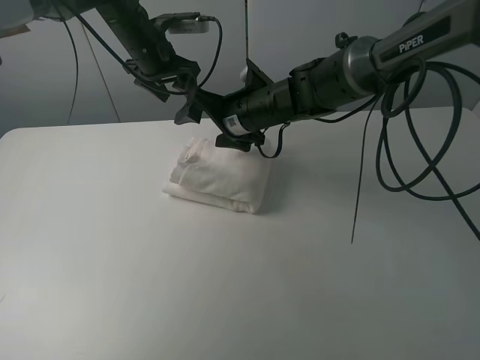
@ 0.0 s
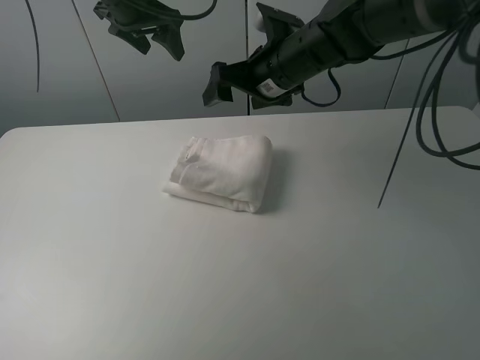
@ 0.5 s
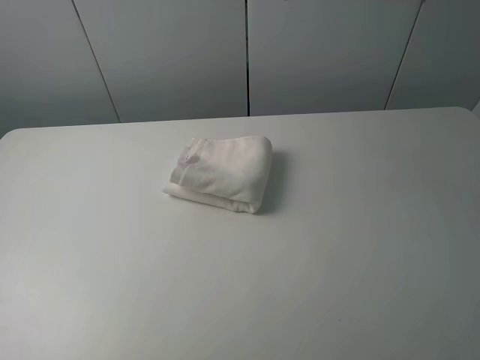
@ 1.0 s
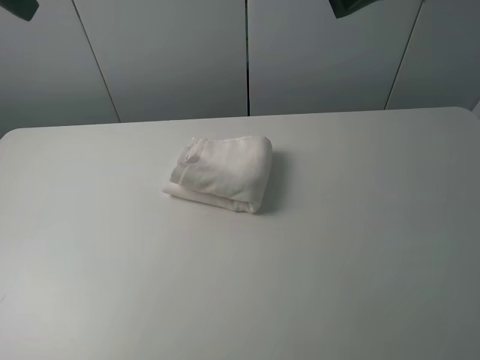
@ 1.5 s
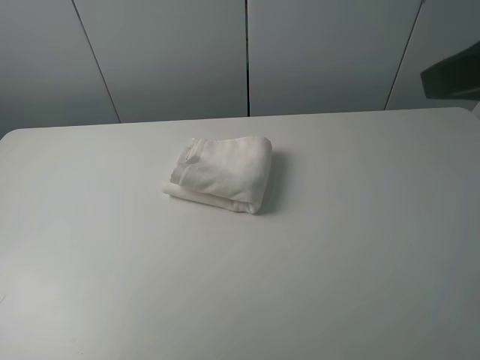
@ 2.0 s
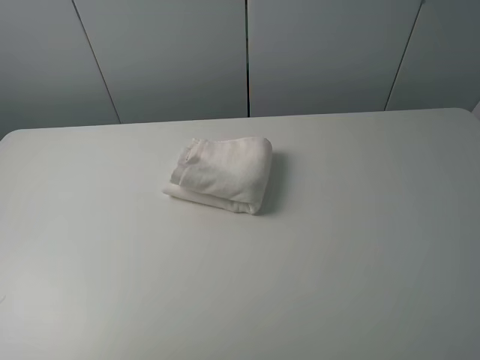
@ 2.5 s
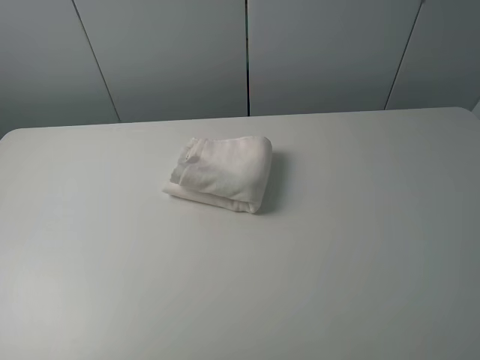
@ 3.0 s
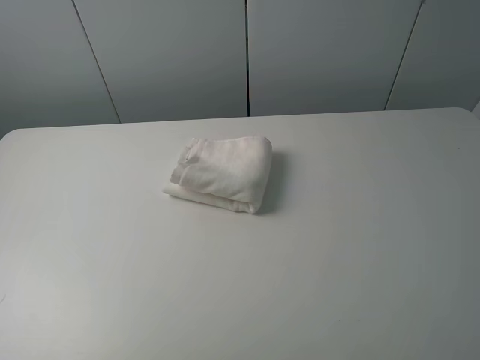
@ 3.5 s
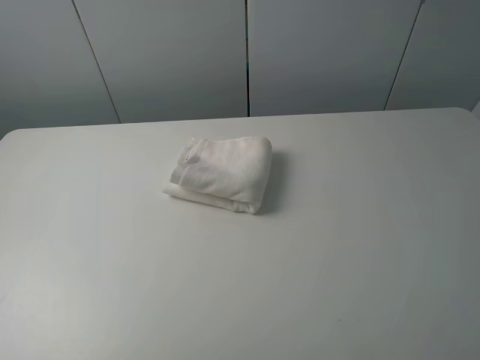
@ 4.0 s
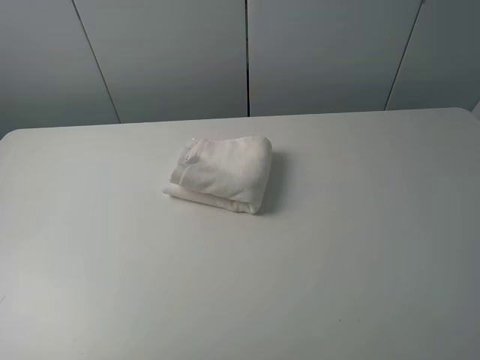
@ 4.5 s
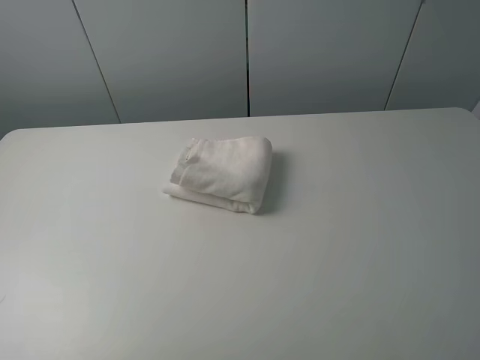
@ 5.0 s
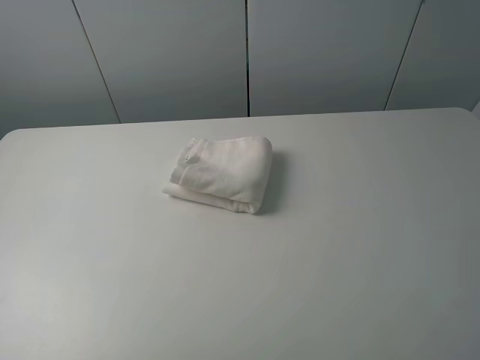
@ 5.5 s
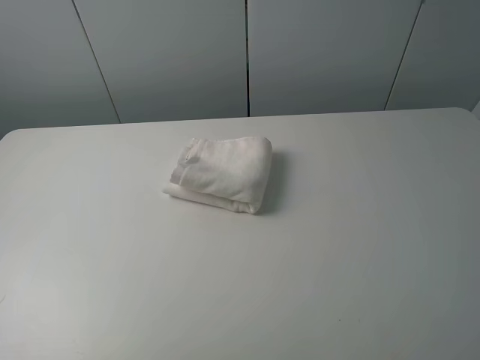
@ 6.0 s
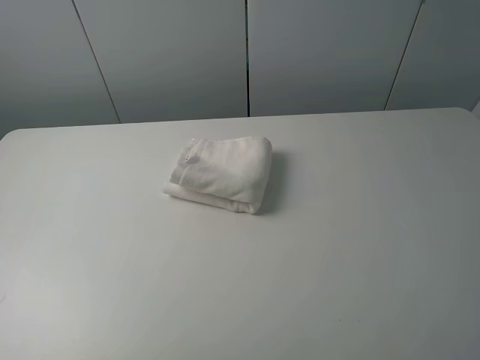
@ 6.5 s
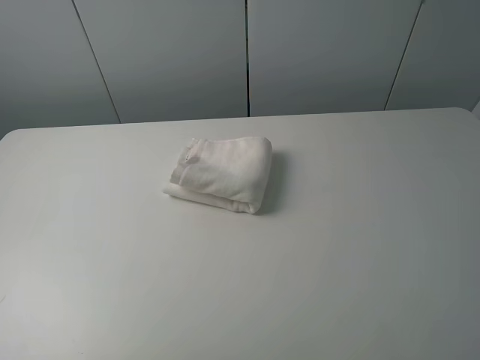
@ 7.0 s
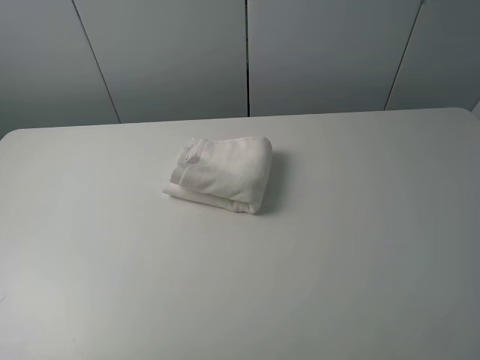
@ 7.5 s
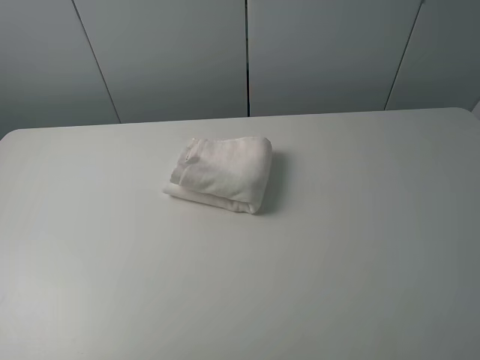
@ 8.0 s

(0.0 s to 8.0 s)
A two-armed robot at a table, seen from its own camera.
Task of the whole recording: fold the towels on the table.
0.0 s - 2.0 s: The right gripper moves backward, upward and to the right, approximately 40 cm. The left gripper is displaced backward and upward by roughly 40 cm.
2.0 s - 4.0 s: The right gripper goes roughly 15 cm backward and downward.
6.0 s - 8.0 s: Both grippers stay put.

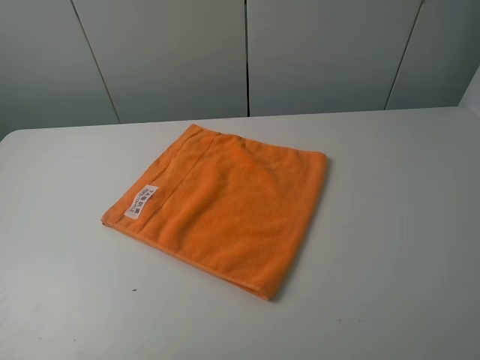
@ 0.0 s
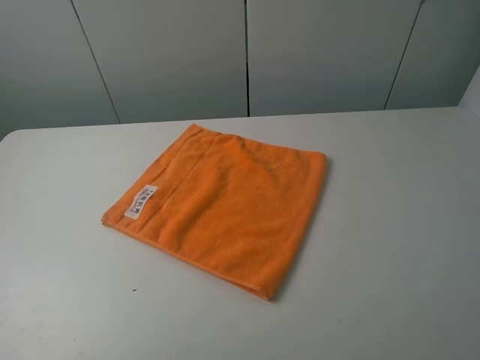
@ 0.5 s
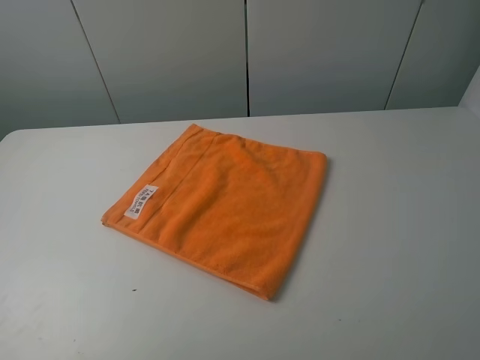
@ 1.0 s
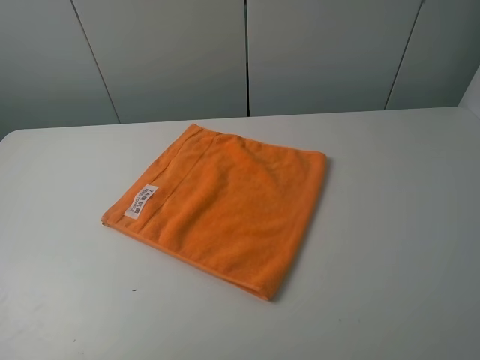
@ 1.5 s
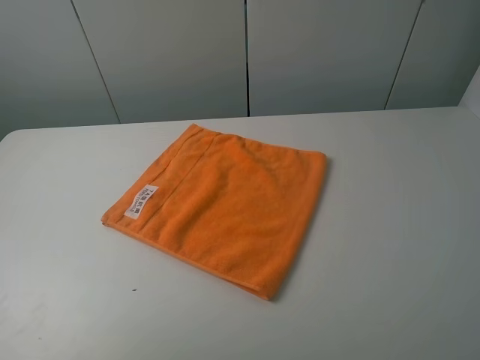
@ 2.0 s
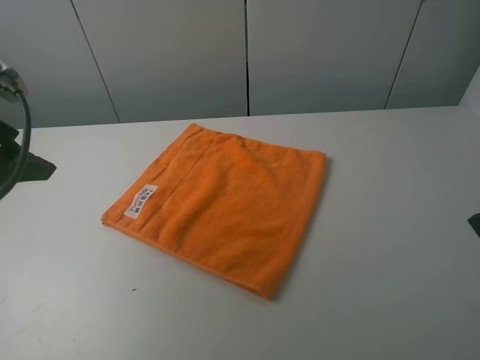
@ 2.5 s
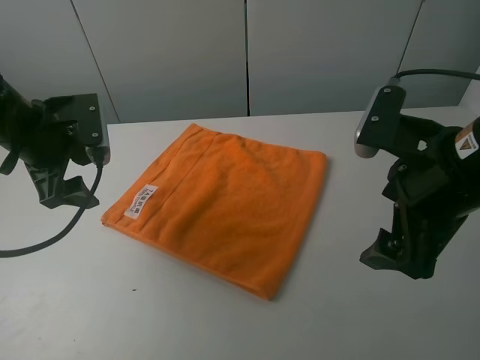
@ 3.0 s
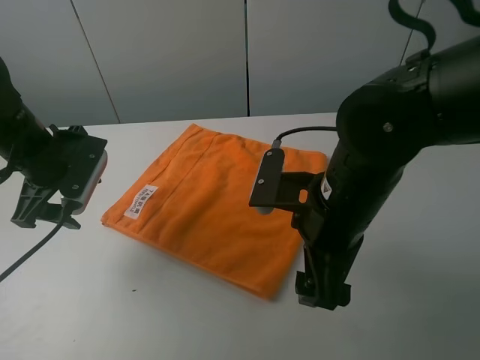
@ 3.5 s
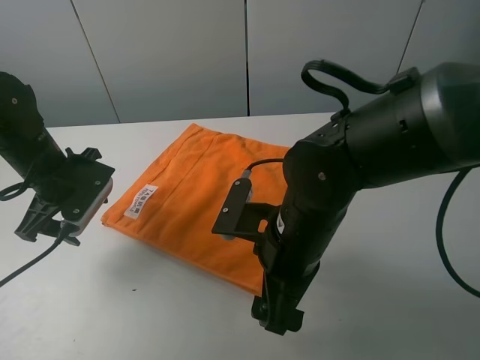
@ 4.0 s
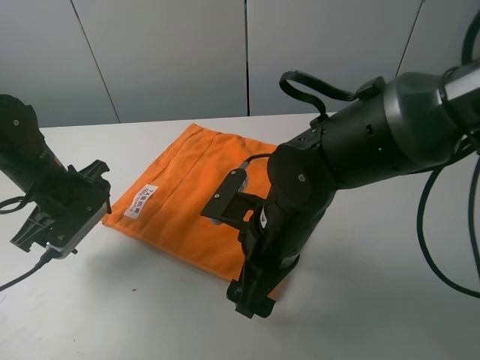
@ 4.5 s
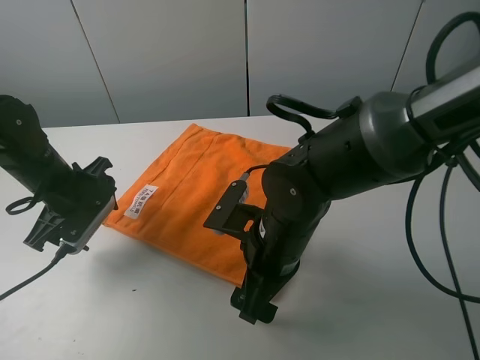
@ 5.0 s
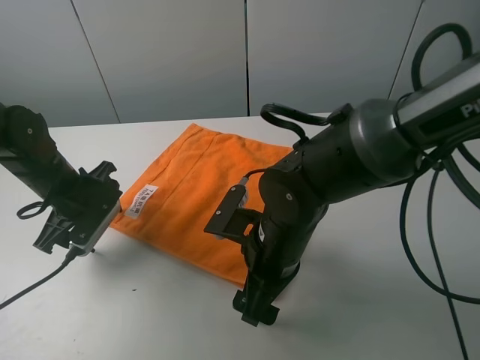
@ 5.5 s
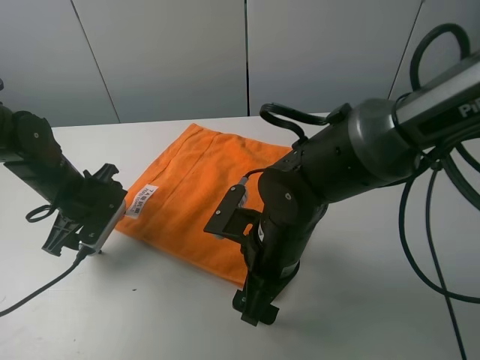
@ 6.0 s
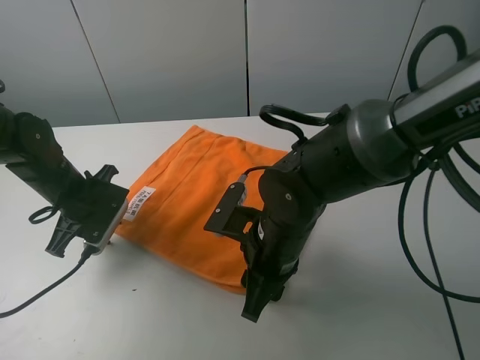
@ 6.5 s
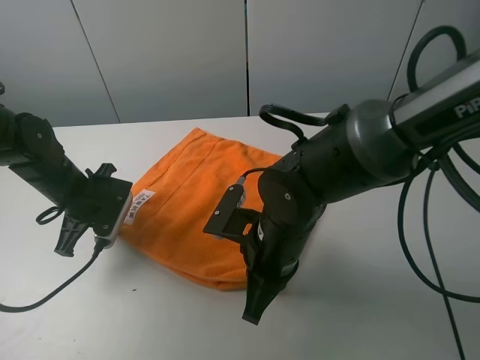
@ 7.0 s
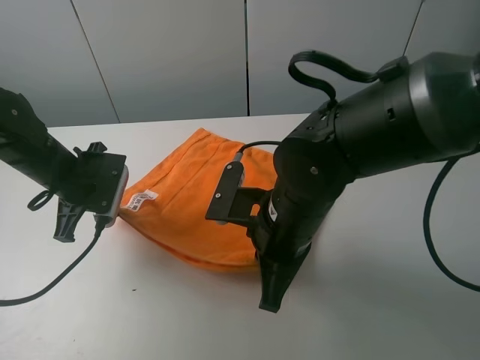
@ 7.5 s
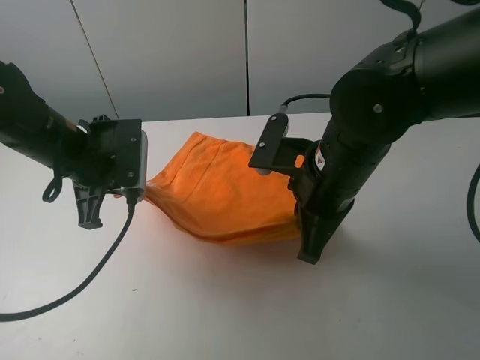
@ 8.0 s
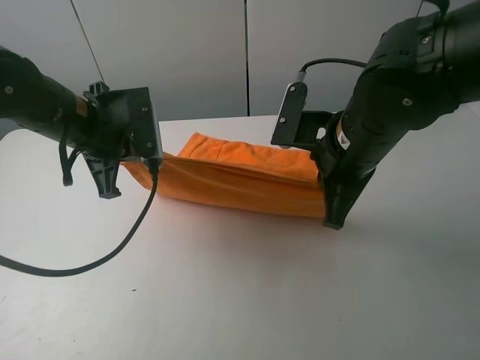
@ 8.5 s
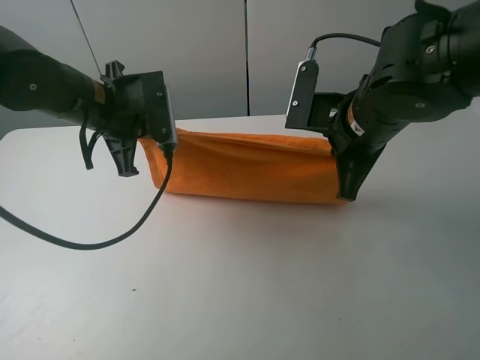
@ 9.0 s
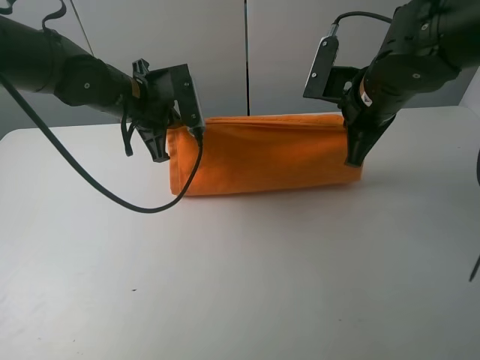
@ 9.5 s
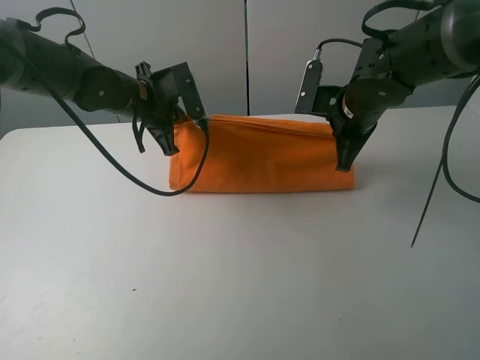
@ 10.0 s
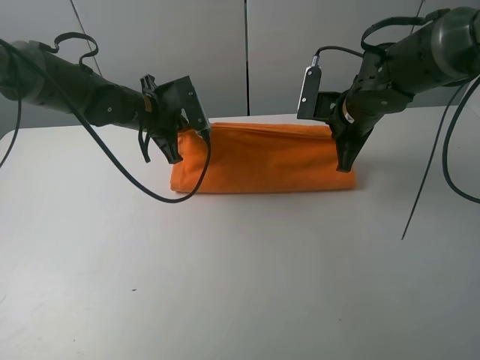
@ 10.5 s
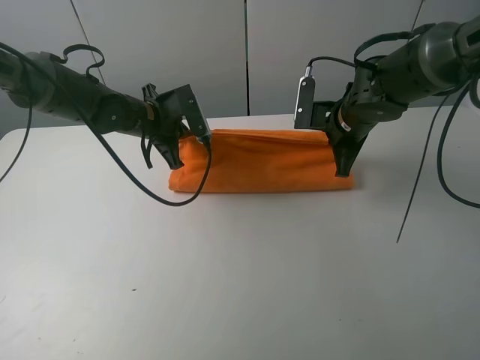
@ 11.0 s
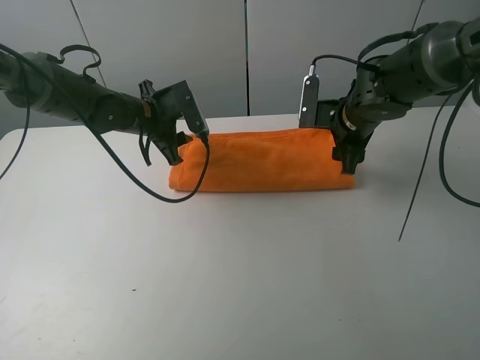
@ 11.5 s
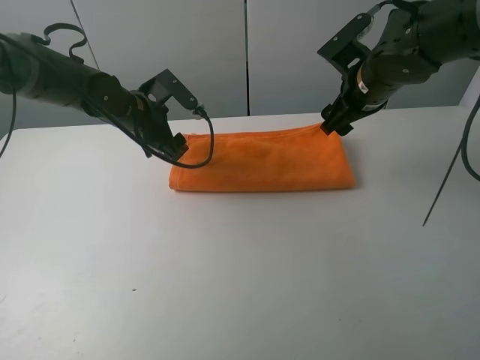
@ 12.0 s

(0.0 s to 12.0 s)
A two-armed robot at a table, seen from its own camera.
Task of the whole recording: fold the towels on the table.
Step, 0.0 s - 6.5 s: Grasp the orange towel with the right gripper.
Step, 7.0 s - 11.5 s: Fold the orange towel upwards with the right gripper.
2.0 s - 4.0 s: The right gripper shifts some 35 cm to the left, forward and downward, while the left gripper heads forward and downward, covering some 30 cm.
4.0 s - 6.0 s: The grippers make only small movements.
6.0 s - 8.0 s: Both grippers move upward and to the right, some 10 cm. The left gripper closes. The right gripper closes its fingers.
8.0 s - 10.0 s: The right gripper is displaced forward and to the right by approximately 15 cm. The left gripper is displaced forward by about 10 cm.
10.0 s - 12.0 s: The right gripper opens up. The left gripper opens its fingers.

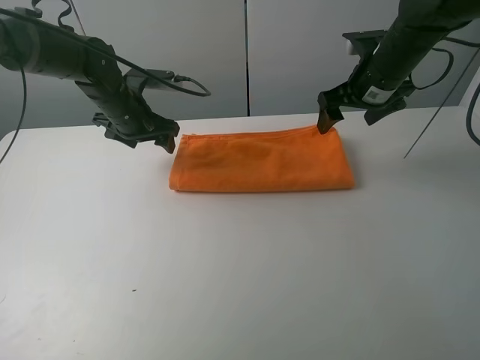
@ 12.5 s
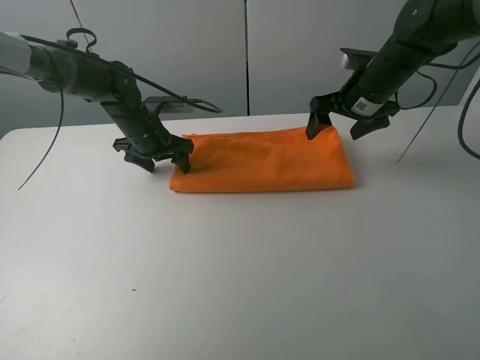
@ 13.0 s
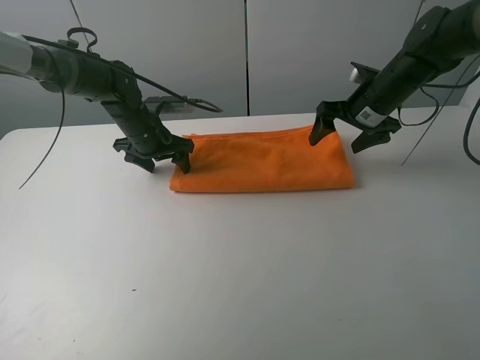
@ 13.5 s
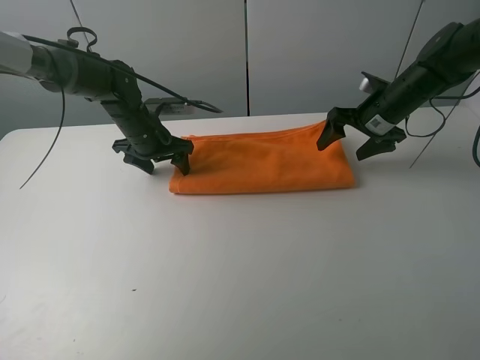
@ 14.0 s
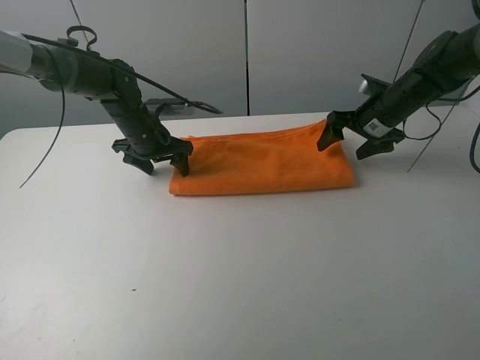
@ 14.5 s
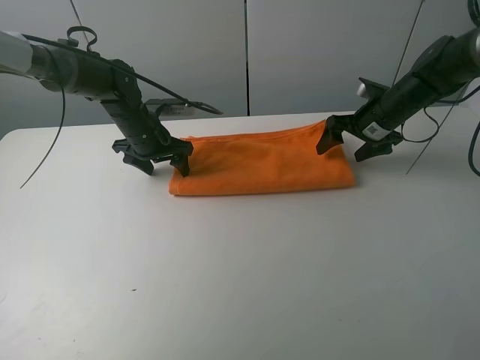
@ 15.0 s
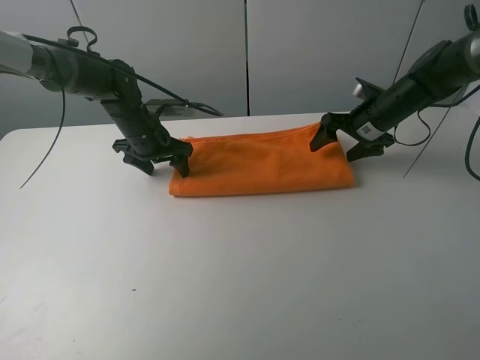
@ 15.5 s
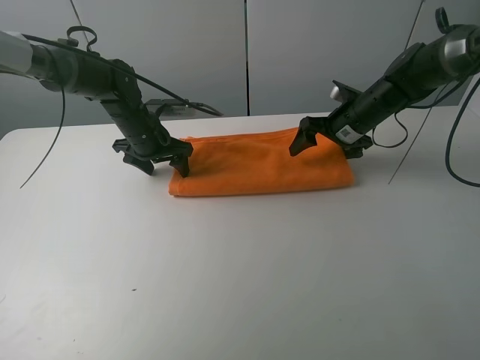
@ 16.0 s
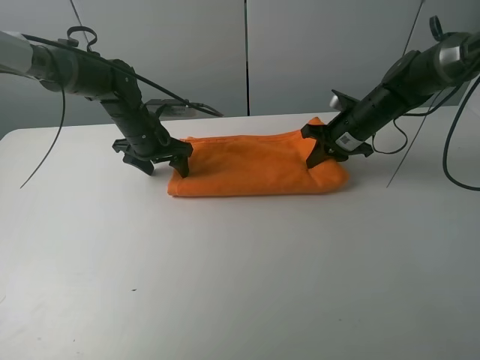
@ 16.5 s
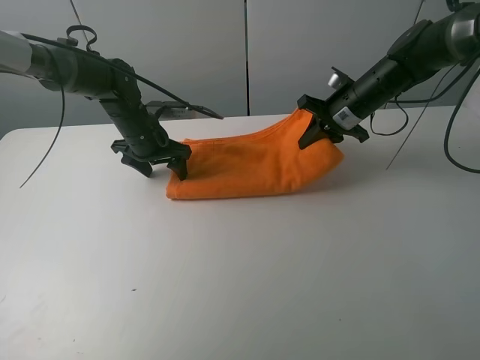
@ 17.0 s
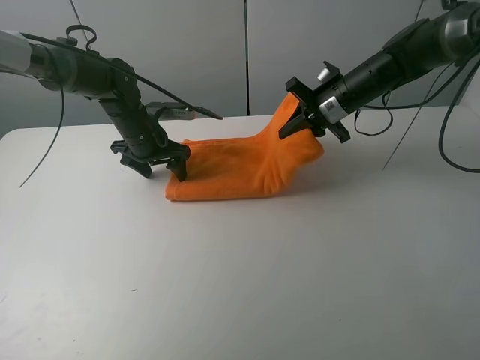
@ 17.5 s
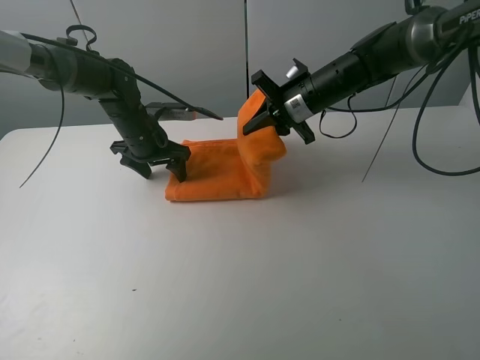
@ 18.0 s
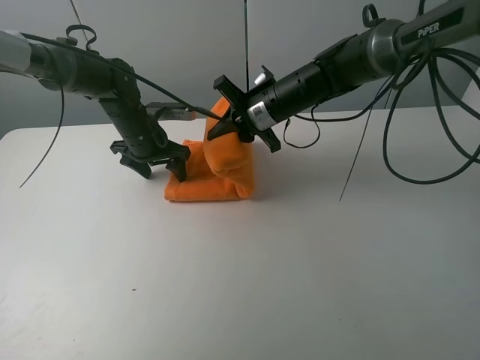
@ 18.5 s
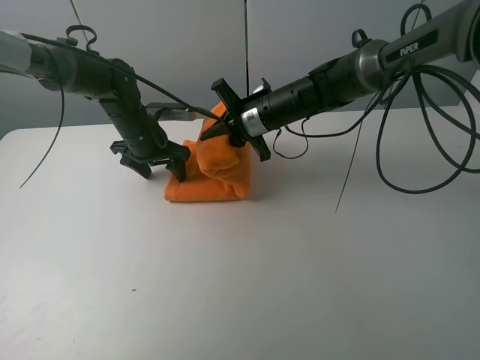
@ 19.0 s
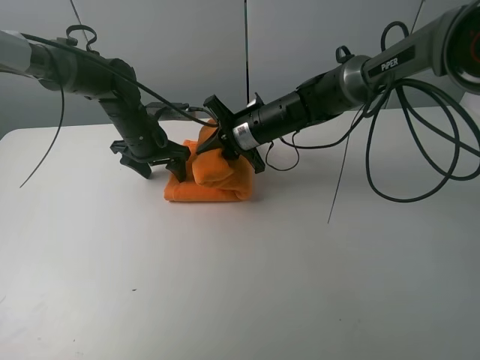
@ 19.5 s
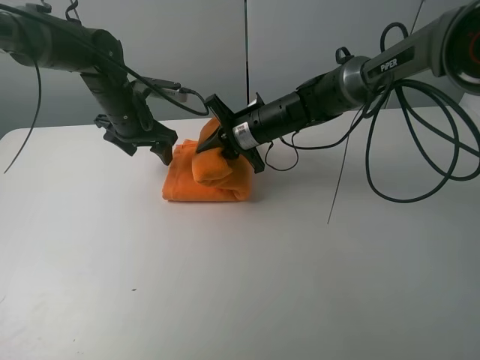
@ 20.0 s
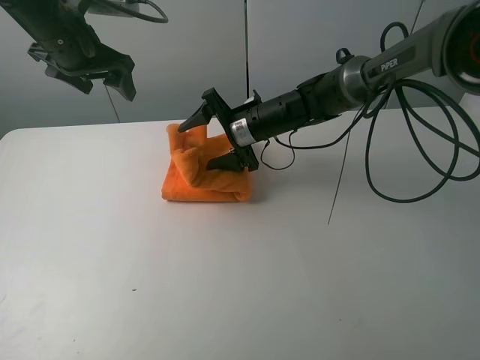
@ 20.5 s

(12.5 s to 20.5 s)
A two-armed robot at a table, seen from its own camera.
Task of the whole recording: fold the towels on the table.
12.5 s - 14.5 s: The right gripper shifts about 10 cm downward.
14.5 s - 16.5 s: The right gripper shifts by approximately 5 cm, and closes up.
16.5 s - 18.5 s: The right gripper is displaced to the left by some 15 cm.
18.5 s - 20.5 s: The right gripper opens. Meanwhile the left gripper heads upward, covering about 20 cm.
